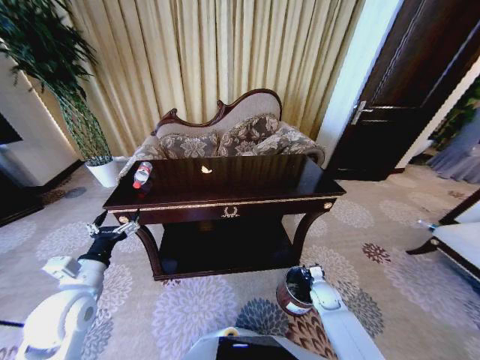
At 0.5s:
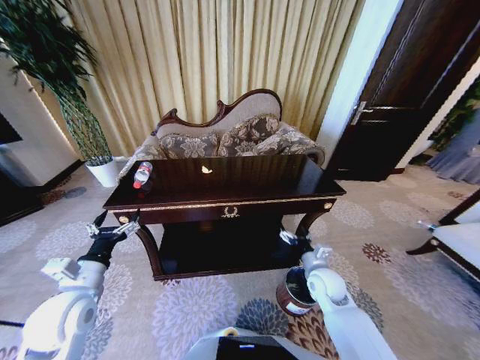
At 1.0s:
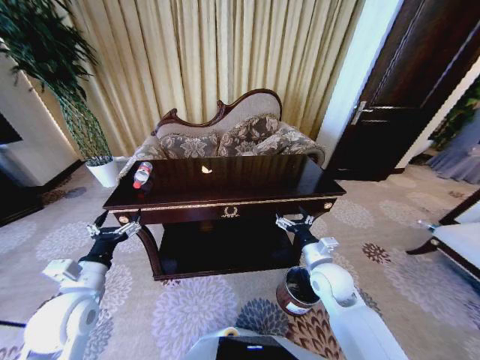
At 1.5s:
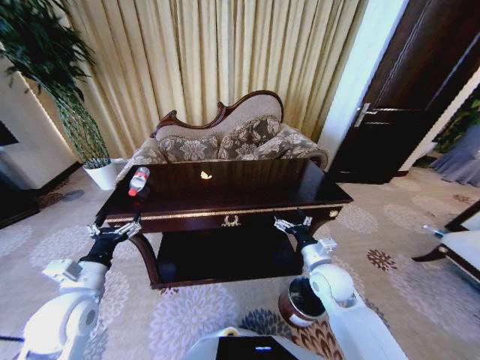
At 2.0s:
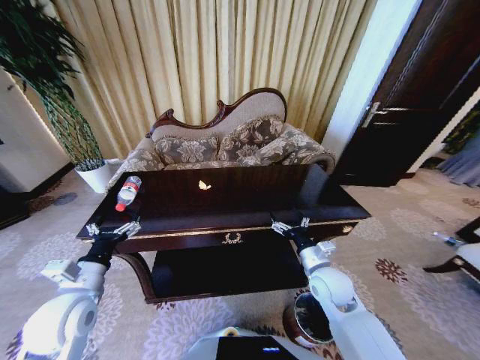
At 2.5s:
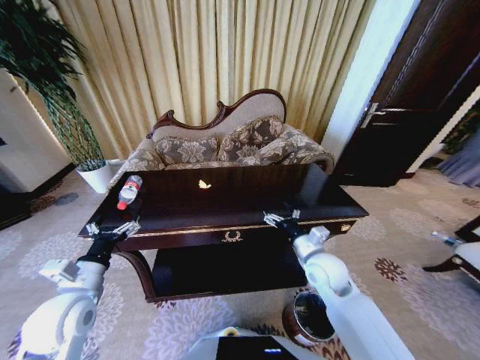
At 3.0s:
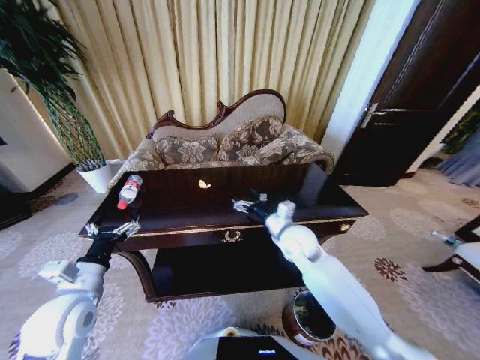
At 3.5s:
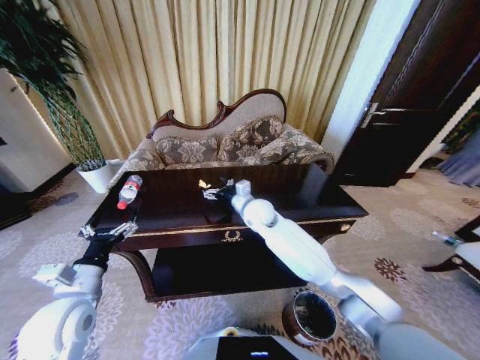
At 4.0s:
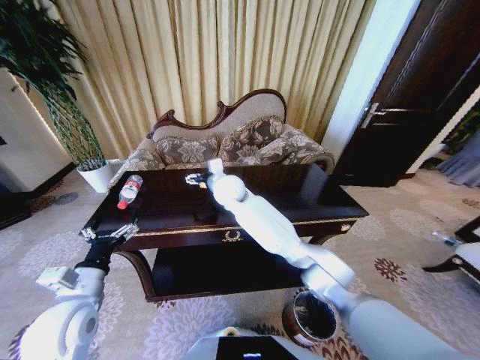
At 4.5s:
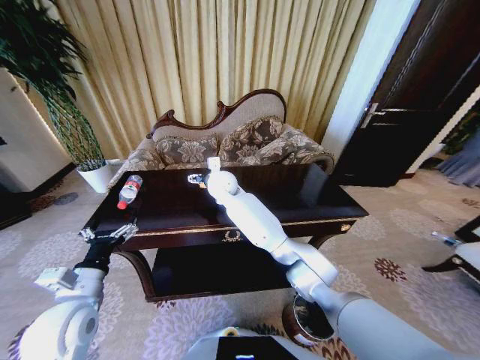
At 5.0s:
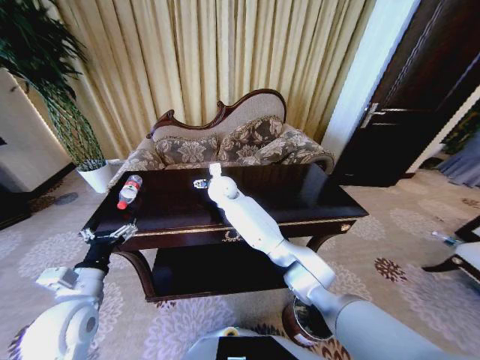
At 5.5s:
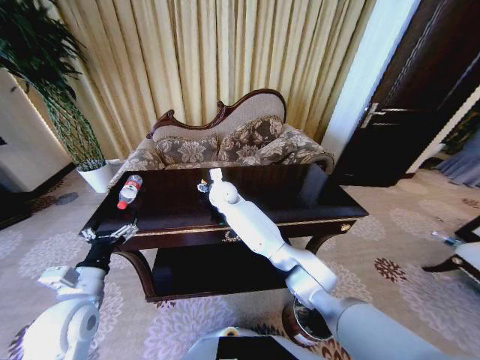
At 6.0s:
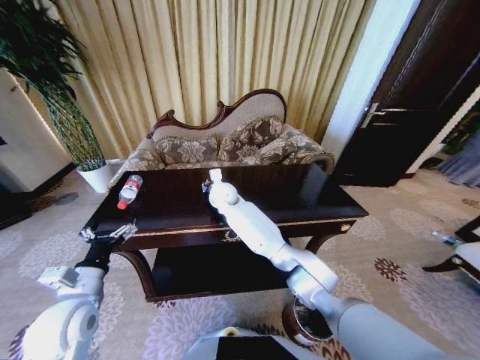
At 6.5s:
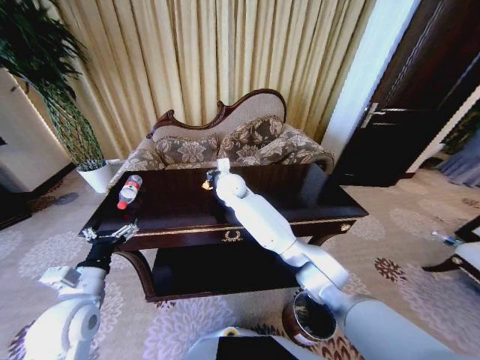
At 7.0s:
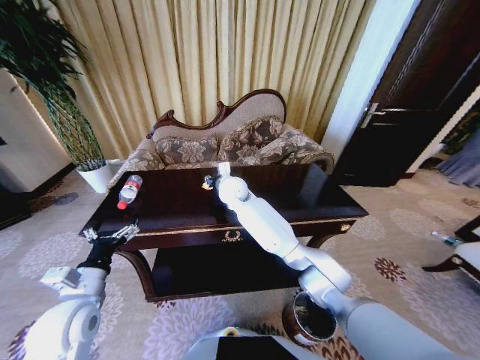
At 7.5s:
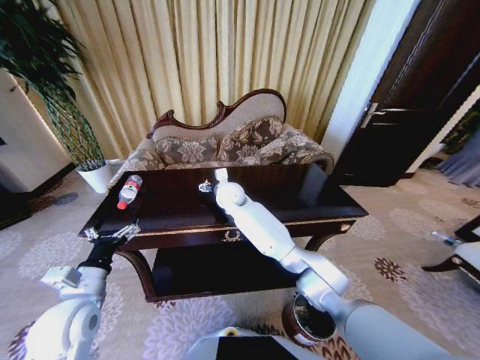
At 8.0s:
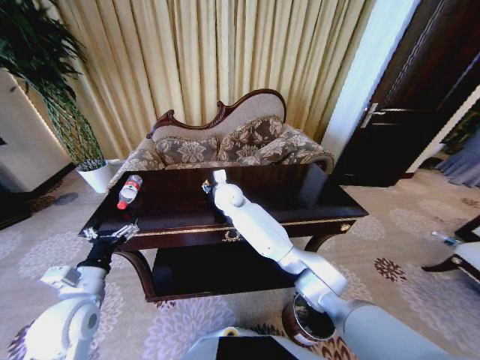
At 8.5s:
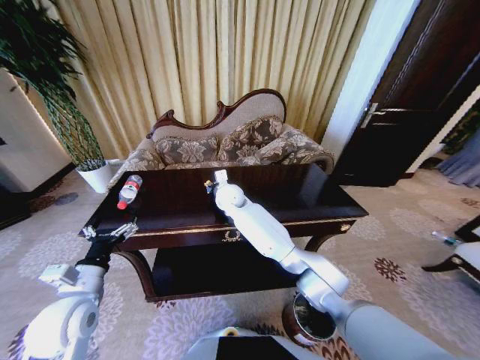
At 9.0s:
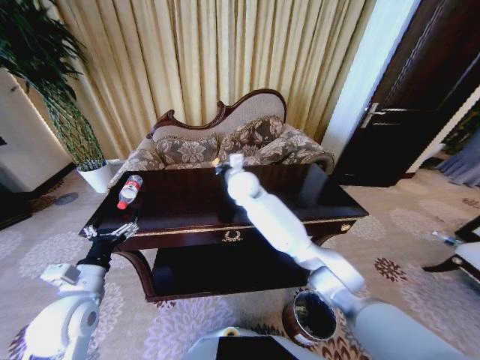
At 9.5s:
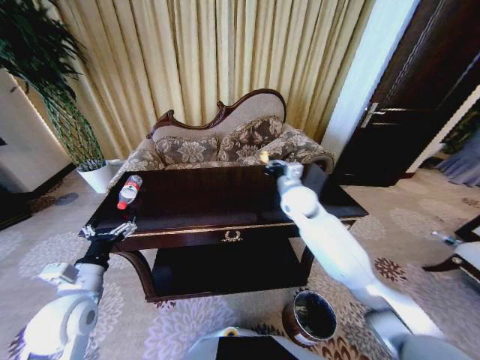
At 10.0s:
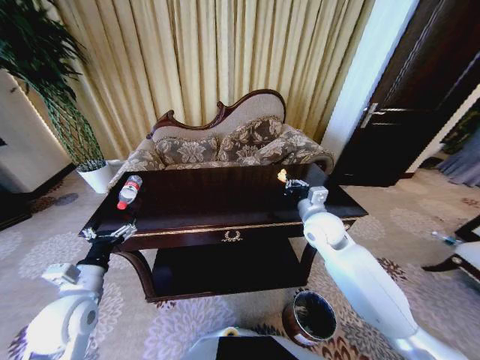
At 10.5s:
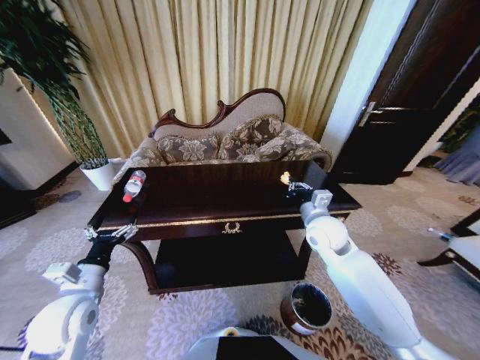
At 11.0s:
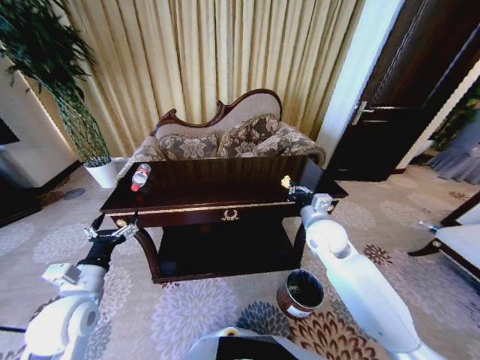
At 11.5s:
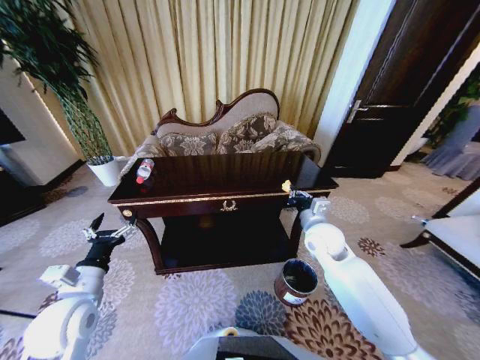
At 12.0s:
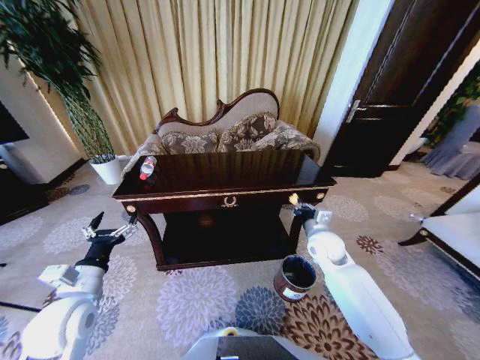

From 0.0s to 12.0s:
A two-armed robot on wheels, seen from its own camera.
Task of the whole recording: Move to the front of the table and place the trash on the table into the trash bin.
From 0.0s to 2.0s: The right gripper is displaced upward and to the left by some 25 cm, and opens up.
From 2.0s to 4.0s: The right gripper heads to the left, forward and upward, covering approximately 40 cm.
From 4.0s to 6.0s: The right gripper travels downward by approximately 5 cm, and closes.
From 6.0s to 8.0s: The right gripper opens, then closes once more.
From 8.0s to 10.0s: The right gripper goes about 30 cm to the right and backward, and closes up.
From 10.0s to 12.0s: The right gripper travels downward by roughly 10 cm.

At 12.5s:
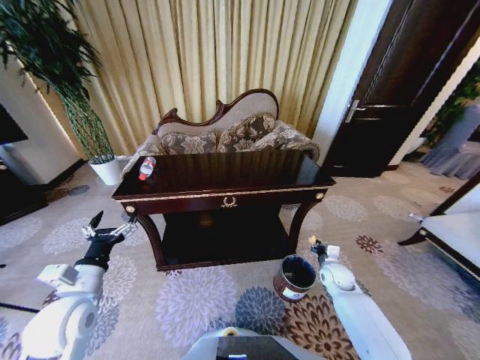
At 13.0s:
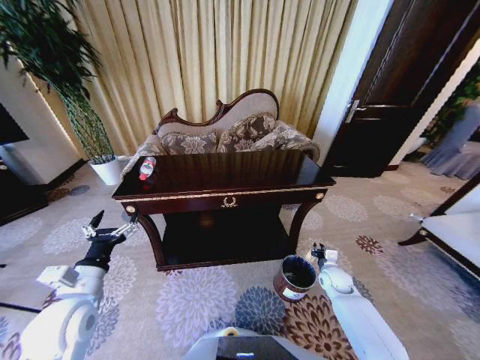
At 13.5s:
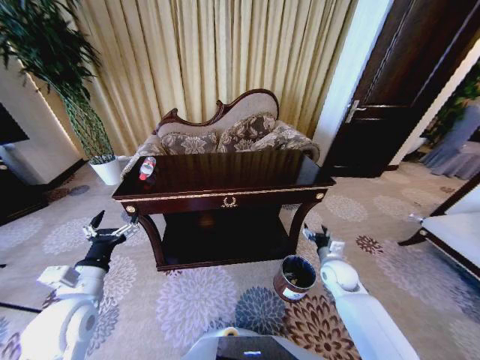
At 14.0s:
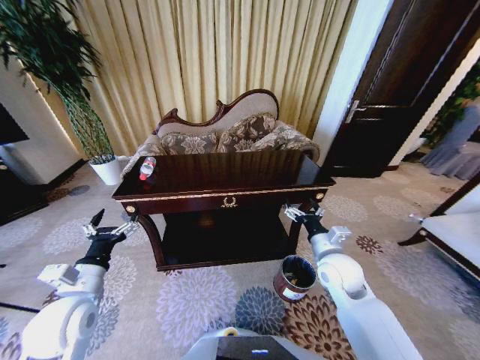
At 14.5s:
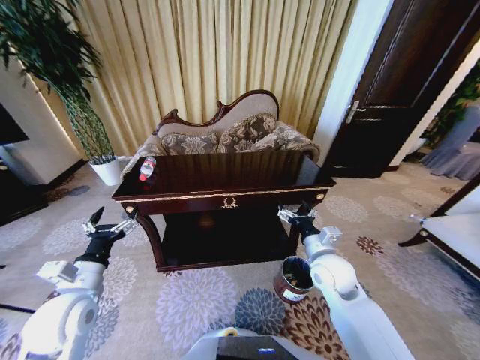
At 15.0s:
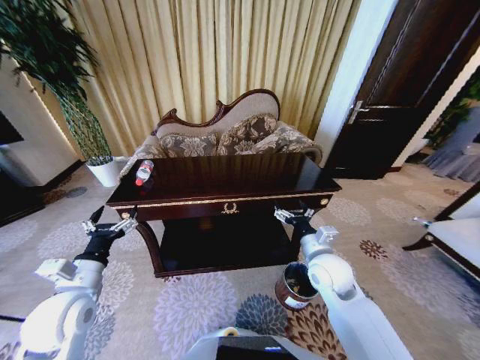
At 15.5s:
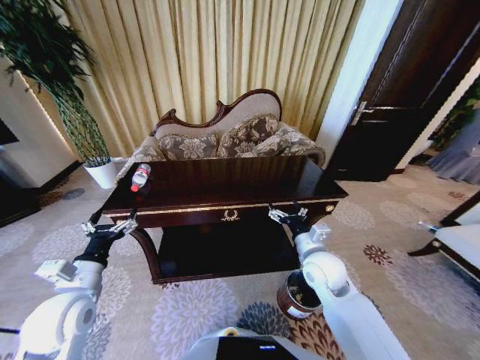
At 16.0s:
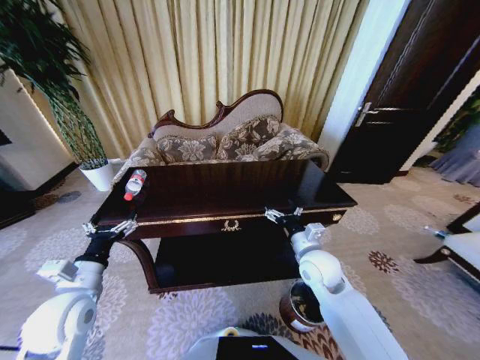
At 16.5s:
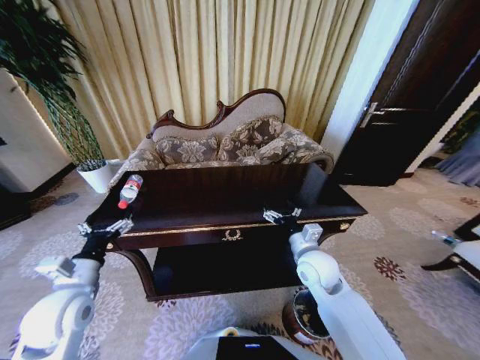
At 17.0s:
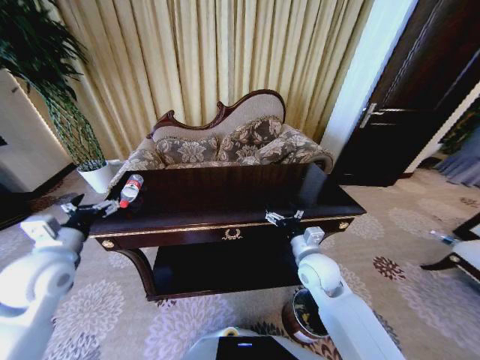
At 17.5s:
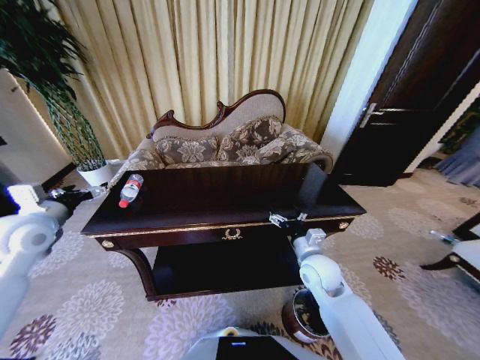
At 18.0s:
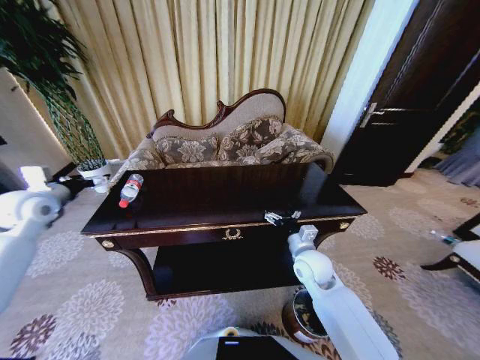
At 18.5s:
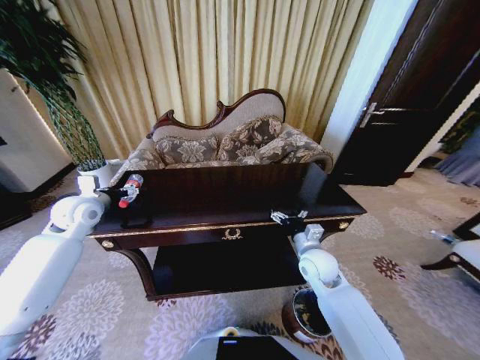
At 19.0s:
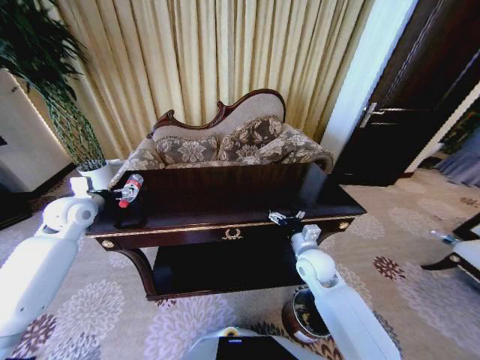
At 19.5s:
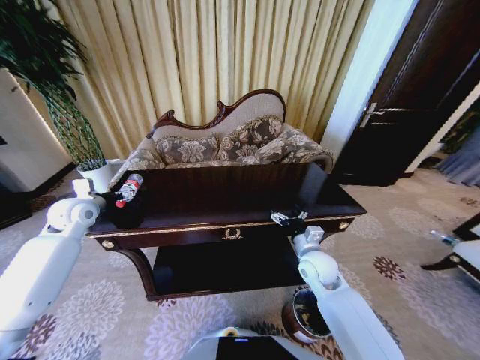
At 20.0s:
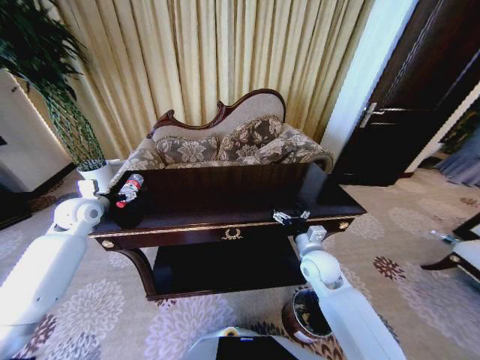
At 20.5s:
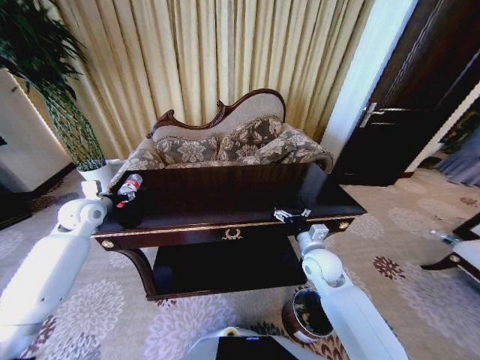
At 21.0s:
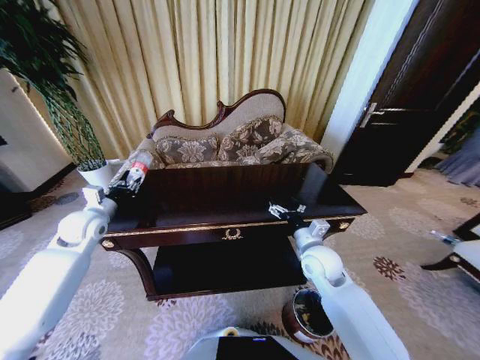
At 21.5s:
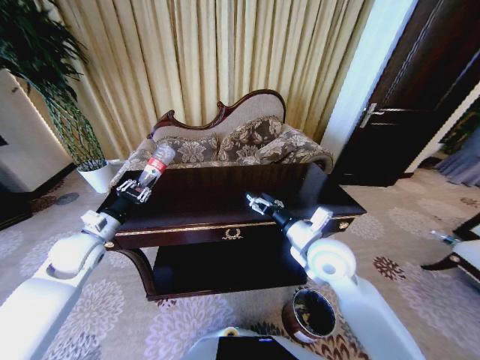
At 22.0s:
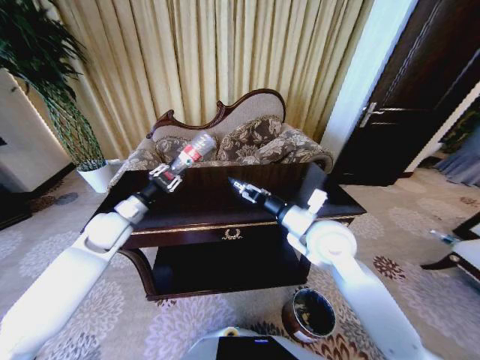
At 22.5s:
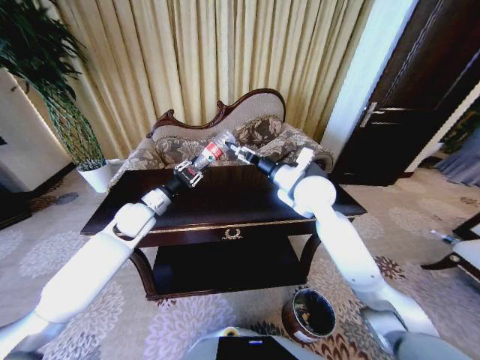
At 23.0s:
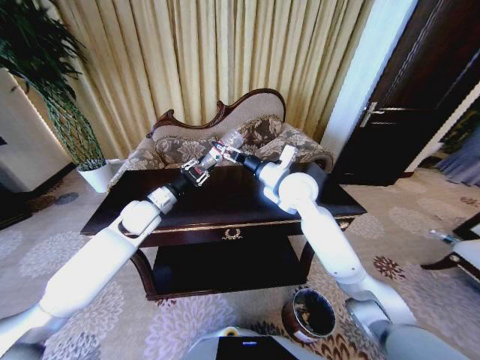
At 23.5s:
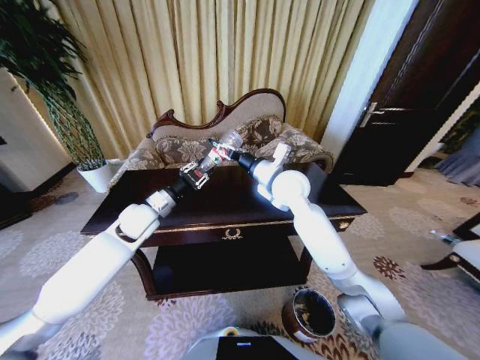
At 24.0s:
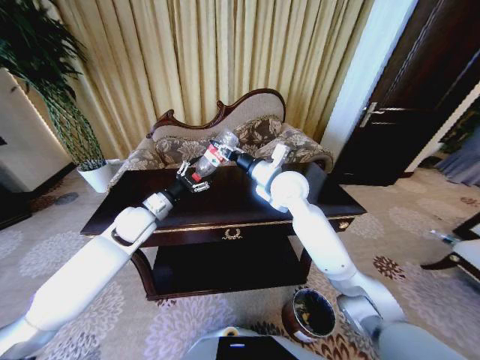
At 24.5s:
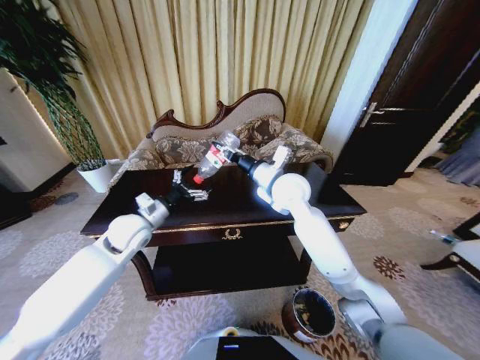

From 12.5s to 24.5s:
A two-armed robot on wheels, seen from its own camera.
Task of the whole recording: Move to the front of the table and place the trash on the table into the trash bin.
From 12.5s to 14.5s: The right gripper shifts some 20 cm upward and to the left, and opens.
From 16.5s to 18.5s: The left gripper shifts approximately 20 cm forward.
From 18.5s to 20.5s: The left gripper closes.
From 20.5s to 22.5s: The right gripper is displaced upward and forward by approximately 20 cm, while the left gripper travels to the right by approximately 15 cm, and closes its fingers.
From 22.5s to 24.5s: The left gripper opens its fingers; the right gripper goes roughly 5 cm to the left, and closes up.

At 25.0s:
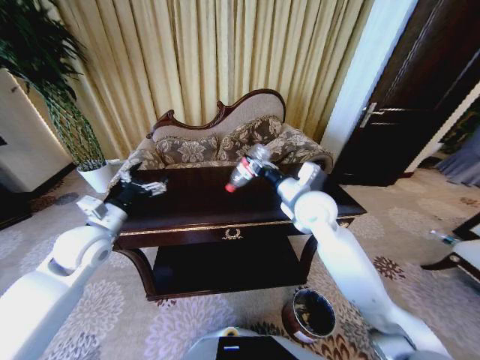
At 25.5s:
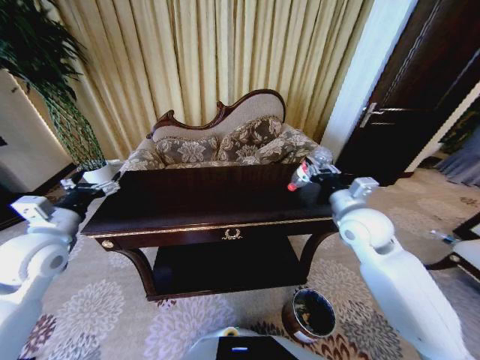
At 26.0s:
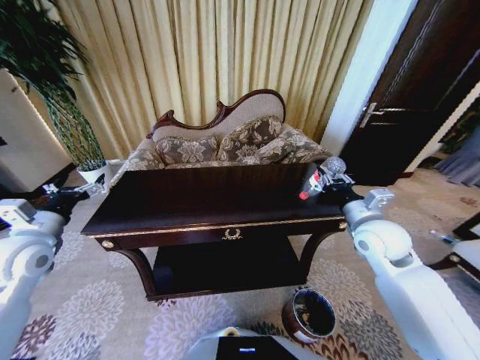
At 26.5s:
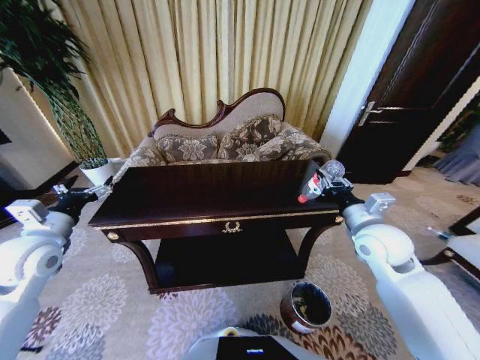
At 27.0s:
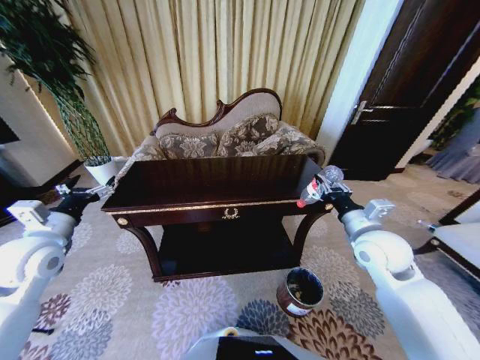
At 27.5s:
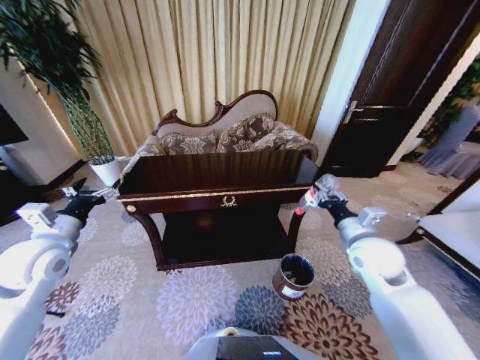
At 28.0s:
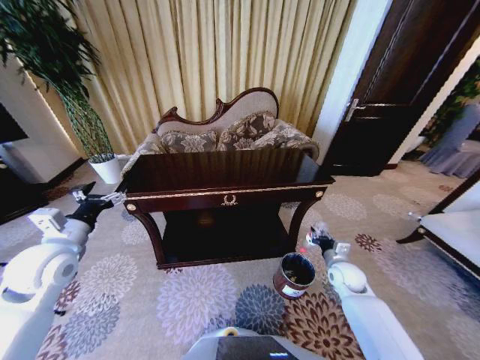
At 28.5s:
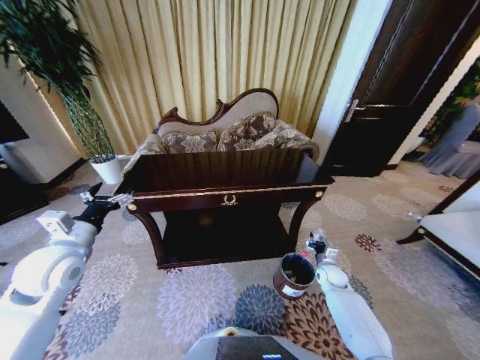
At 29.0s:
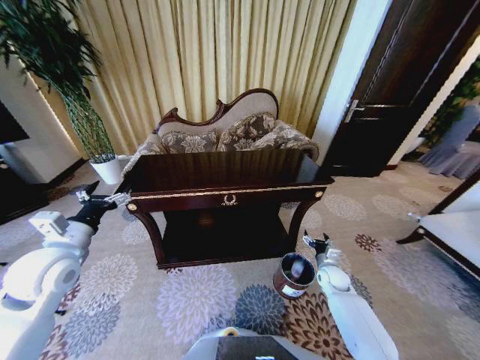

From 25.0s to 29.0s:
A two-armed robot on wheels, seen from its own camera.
Task of the whole recording: Move to the front of the table and place the trash on the table into the trash bin.
From 25.0s to 27.0s: The left gripper moves to the left, approximately 10 cm, while the right gripper travels to the right and backward by about 15 cm.
From 27.0s to 29.0s: The right gripper shifts roughly 30 cm downward, and opens.
